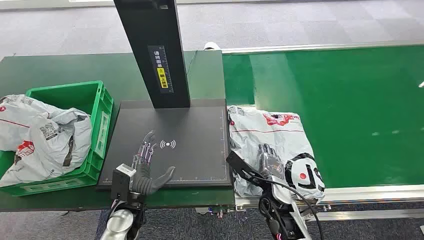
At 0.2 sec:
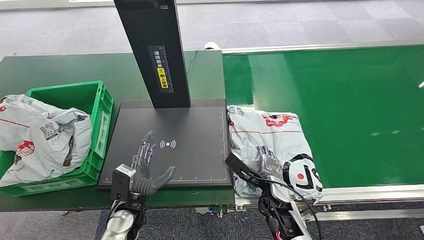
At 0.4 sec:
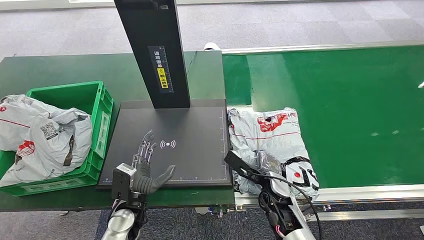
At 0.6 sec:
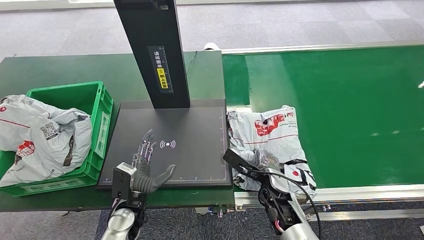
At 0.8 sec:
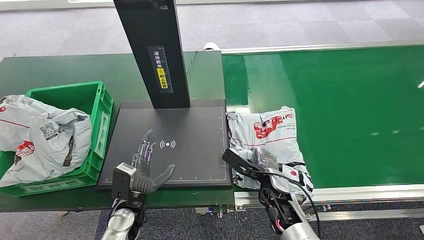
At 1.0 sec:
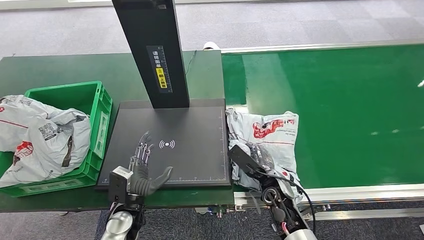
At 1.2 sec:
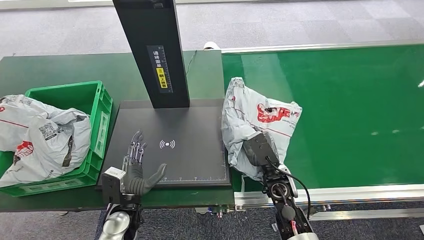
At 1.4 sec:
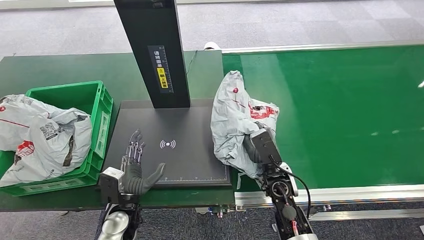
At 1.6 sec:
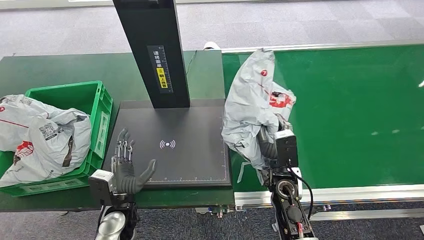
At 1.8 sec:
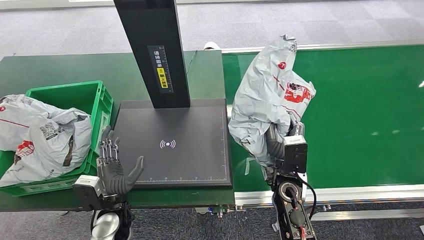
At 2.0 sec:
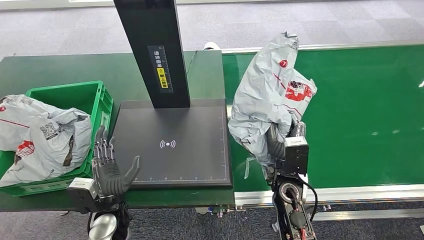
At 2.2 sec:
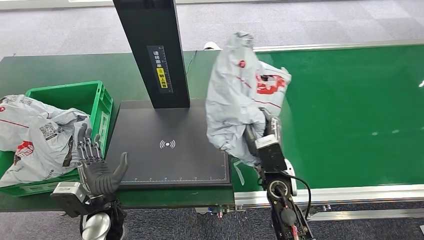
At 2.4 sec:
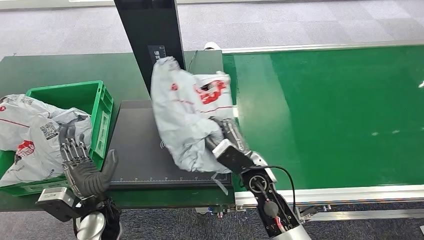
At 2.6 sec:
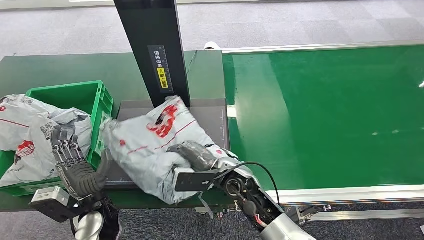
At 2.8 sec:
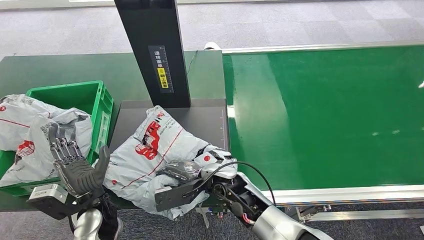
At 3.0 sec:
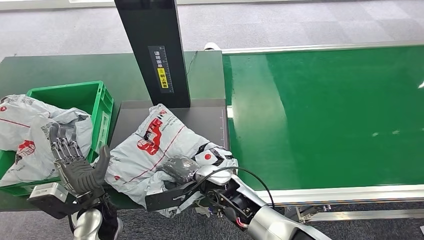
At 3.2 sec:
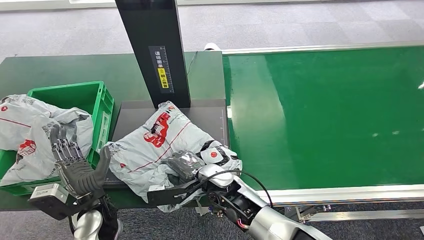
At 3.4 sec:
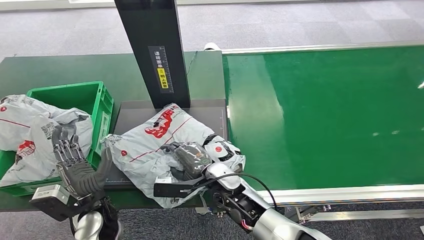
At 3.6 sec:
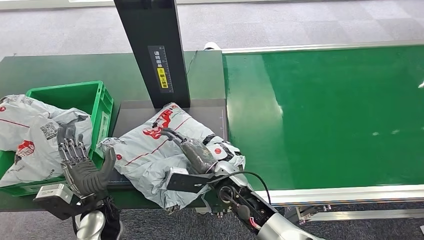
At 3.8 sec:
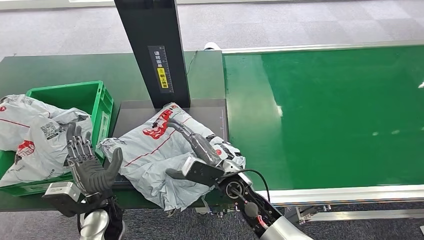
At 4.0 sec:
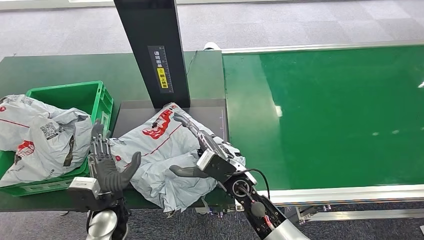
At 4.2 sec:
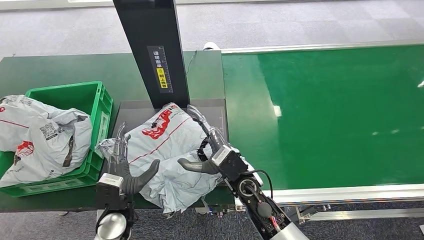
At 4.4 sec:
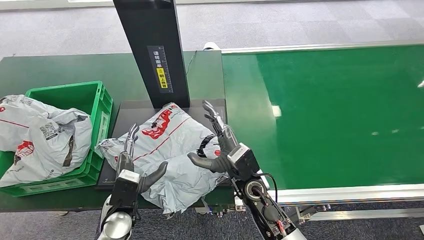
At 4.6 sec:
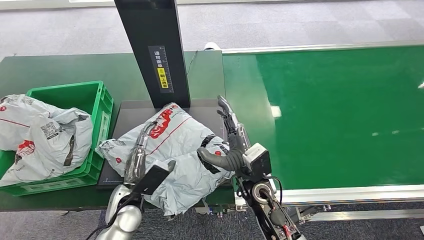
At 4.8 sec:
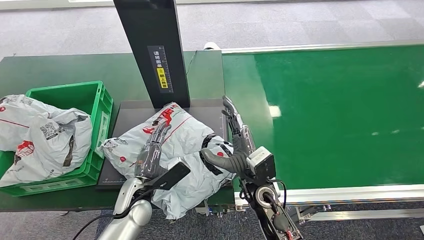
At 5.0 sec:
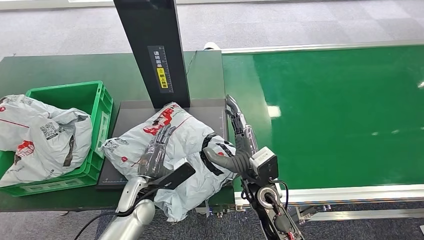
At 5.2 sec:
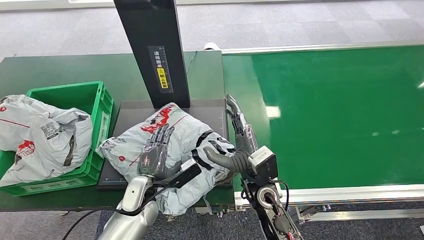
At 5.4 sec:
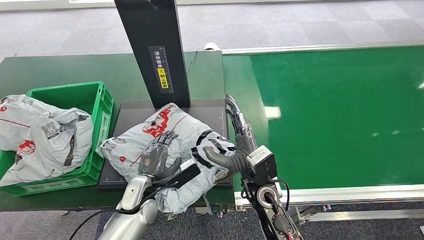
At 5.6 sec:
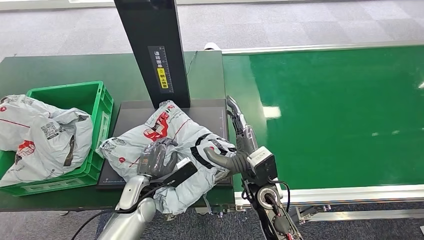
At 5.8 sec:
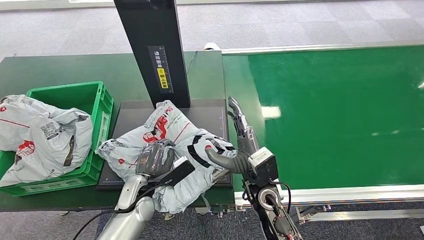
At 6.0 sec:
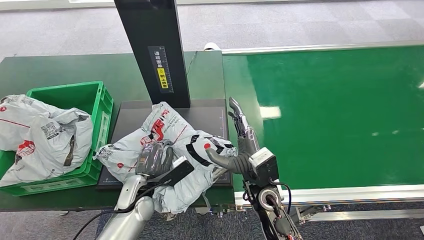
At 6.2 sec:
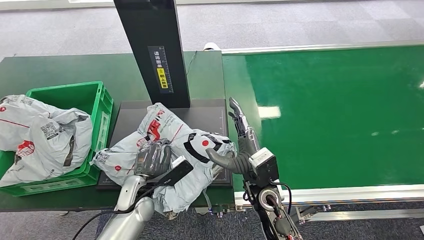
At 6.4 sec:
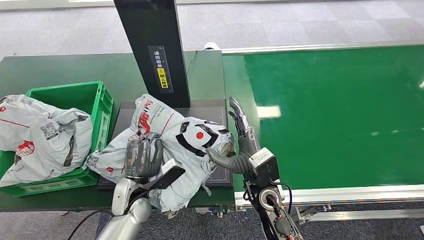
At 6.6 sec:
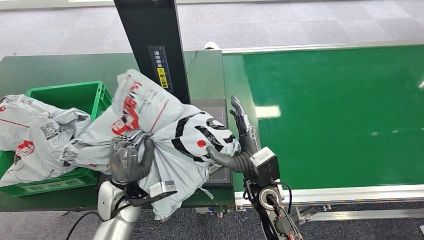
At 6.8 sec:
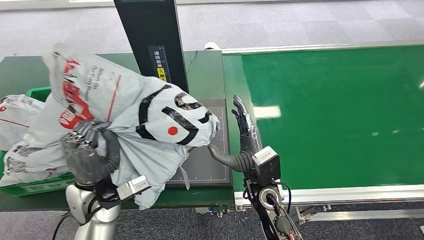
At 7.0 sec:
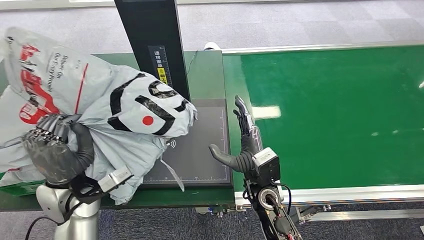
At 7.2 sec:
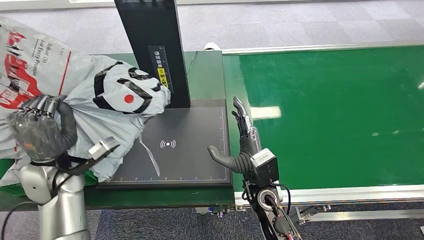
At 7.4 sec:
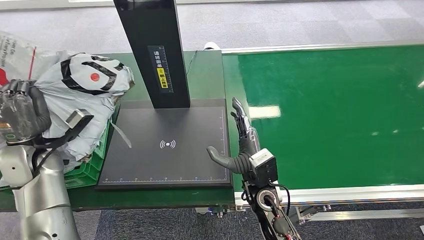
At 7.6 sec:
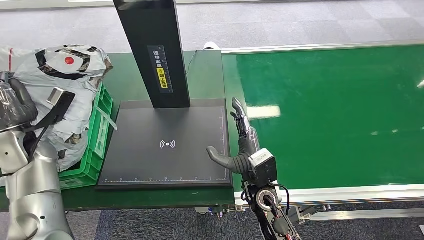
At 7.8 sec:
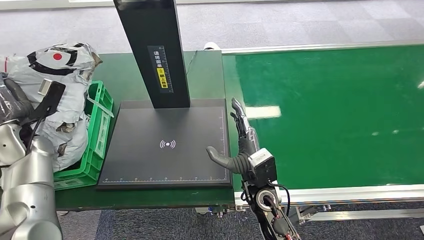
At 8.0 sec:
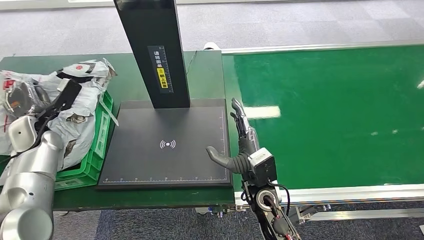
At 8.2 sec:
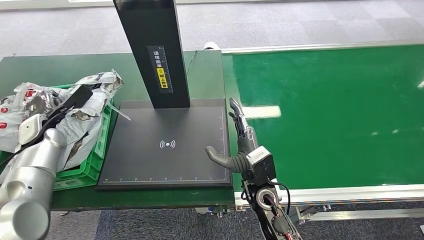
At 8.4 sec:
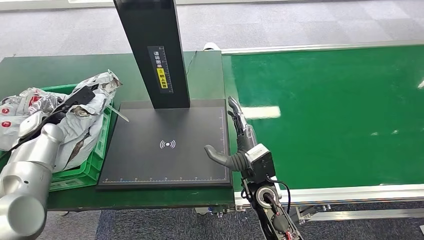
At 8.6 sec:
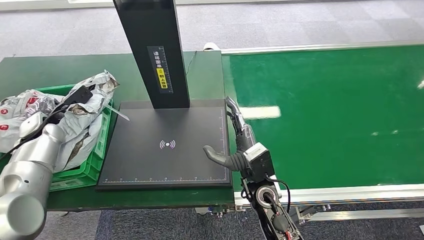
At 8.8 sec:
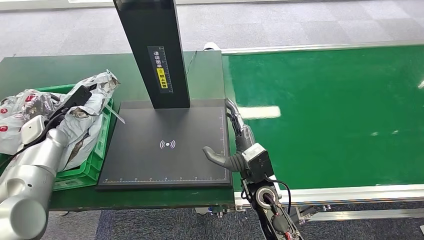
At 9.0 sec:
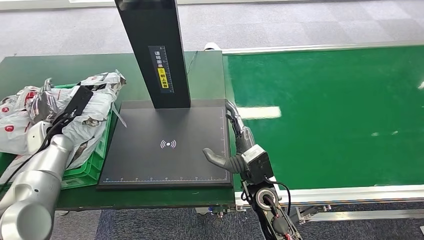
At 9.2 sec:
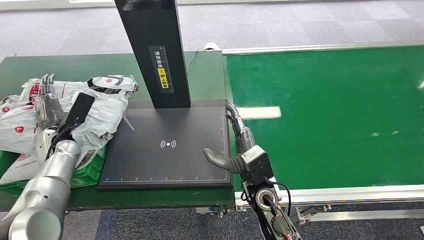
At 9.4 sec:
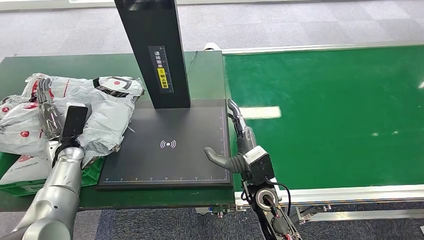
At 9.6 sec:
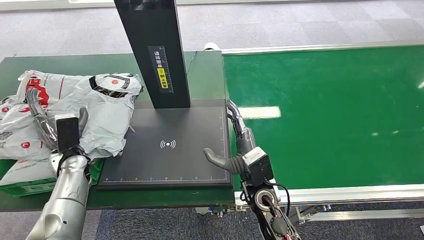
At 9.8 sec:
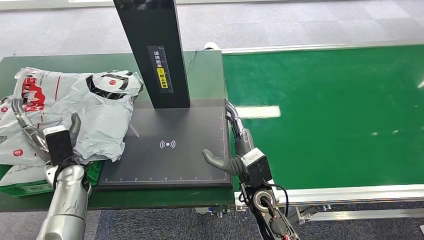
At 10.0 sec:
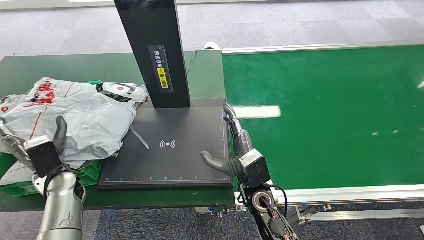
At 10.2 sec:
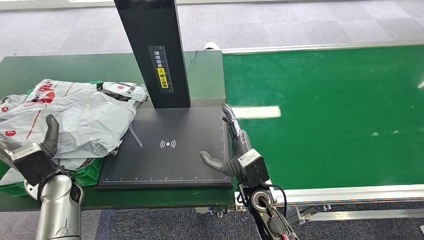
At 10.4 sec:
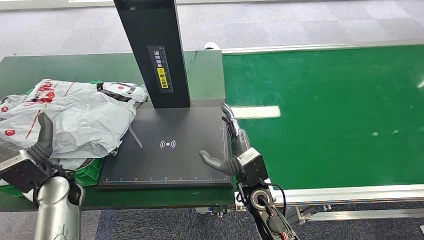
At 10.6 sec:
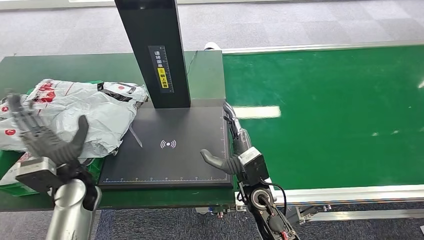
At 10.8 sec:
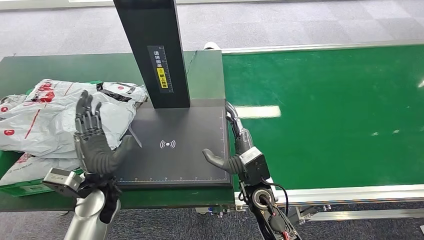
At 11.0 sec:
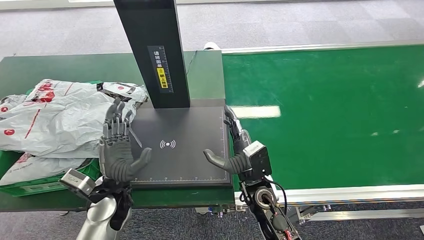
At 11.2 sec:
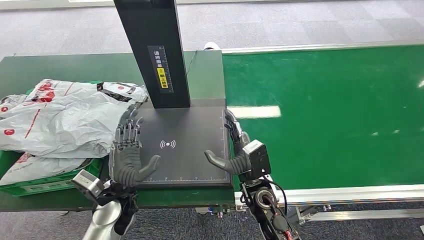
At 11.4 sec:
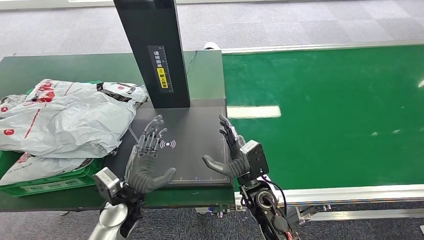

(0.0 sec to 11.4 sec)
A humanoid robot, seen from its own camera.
Step, 0.0 sec - 1.6 sec: Pick up the package from the conveyor belt.
Step, 1.8 sec - 4.4 sec: Place the package onto the inbound machine.
Step, 4.6 sec - 7.0 sec: Pick up the package from the inbound machine.
Step, 7.2 sec - 11.4 sec: Place the package into the parcel locker.
4.2 sec - 5.6 sec: The left hand moves forward, roughly 5 cm.
10.0 sec - 11.4 sec: The left hand travels to the right by approximately 15 cm.
